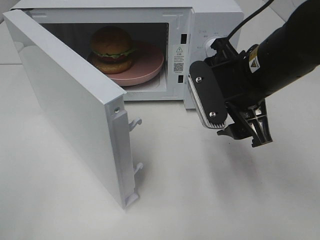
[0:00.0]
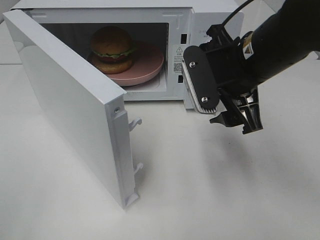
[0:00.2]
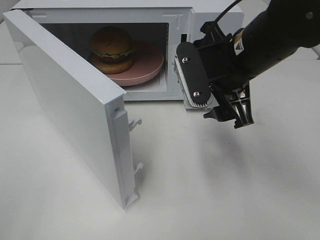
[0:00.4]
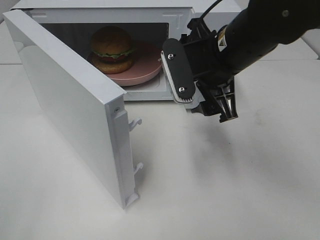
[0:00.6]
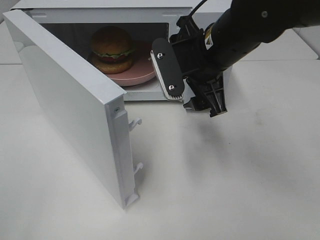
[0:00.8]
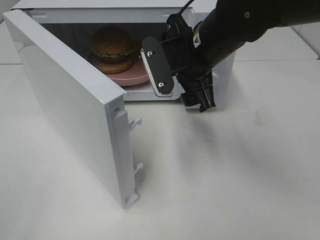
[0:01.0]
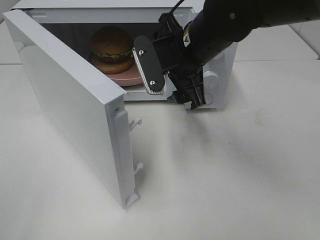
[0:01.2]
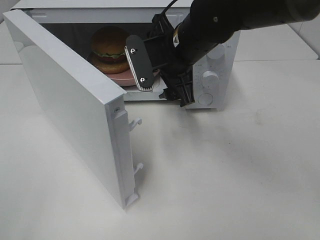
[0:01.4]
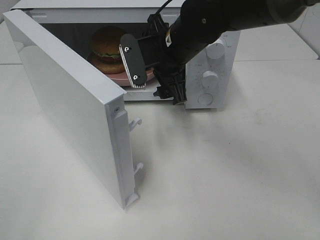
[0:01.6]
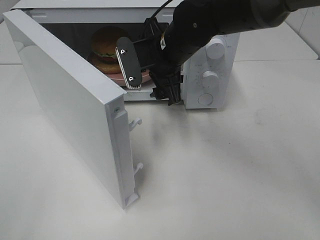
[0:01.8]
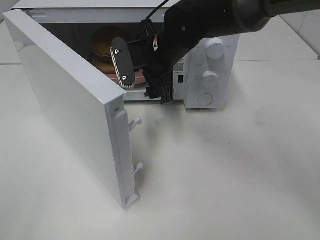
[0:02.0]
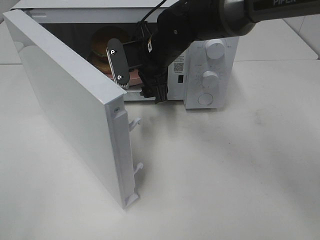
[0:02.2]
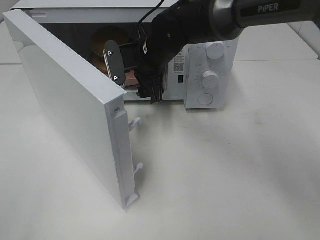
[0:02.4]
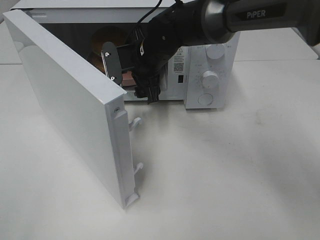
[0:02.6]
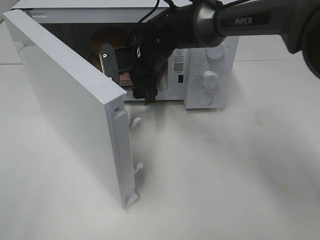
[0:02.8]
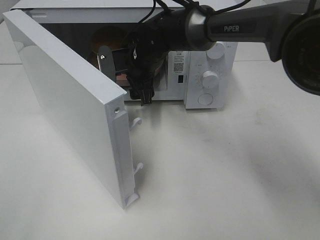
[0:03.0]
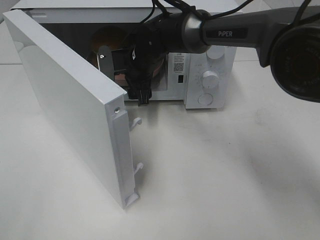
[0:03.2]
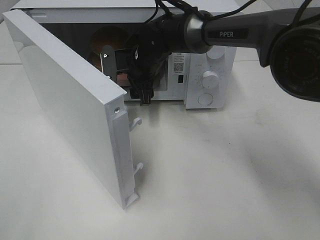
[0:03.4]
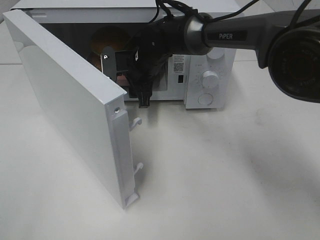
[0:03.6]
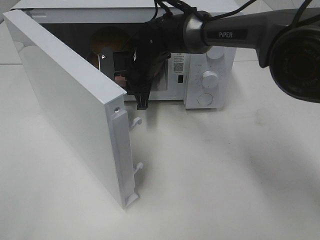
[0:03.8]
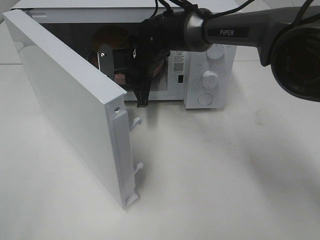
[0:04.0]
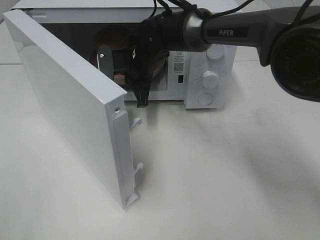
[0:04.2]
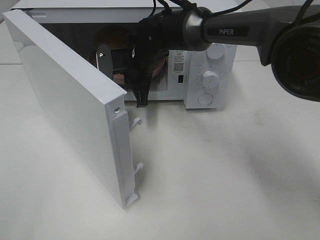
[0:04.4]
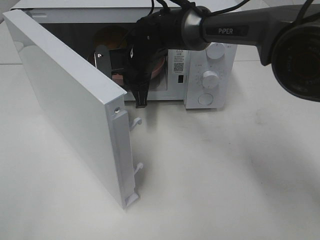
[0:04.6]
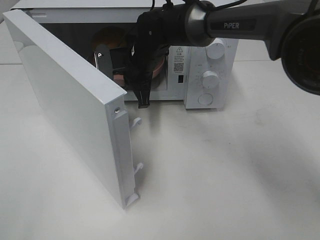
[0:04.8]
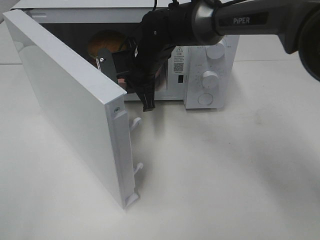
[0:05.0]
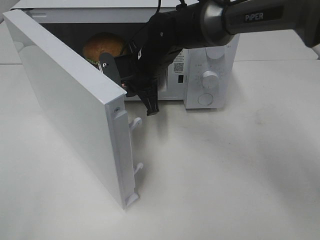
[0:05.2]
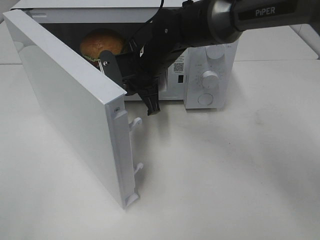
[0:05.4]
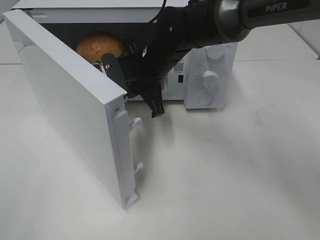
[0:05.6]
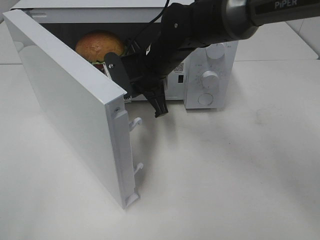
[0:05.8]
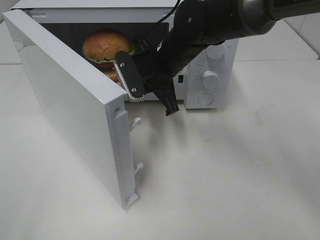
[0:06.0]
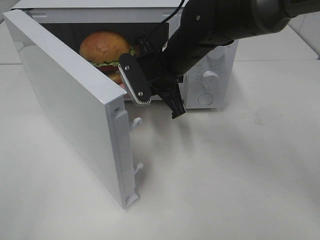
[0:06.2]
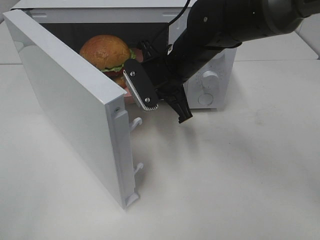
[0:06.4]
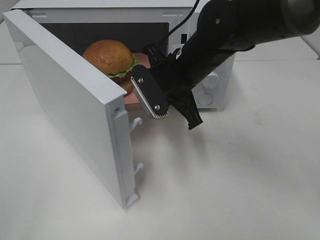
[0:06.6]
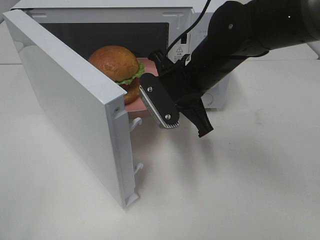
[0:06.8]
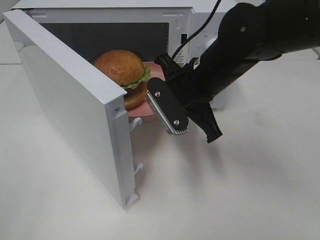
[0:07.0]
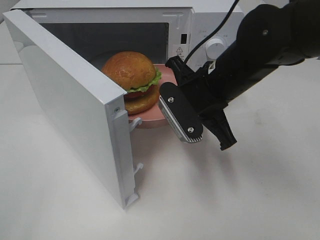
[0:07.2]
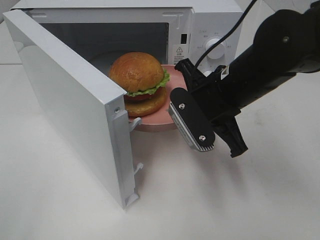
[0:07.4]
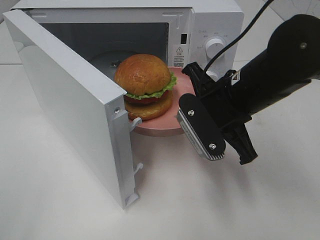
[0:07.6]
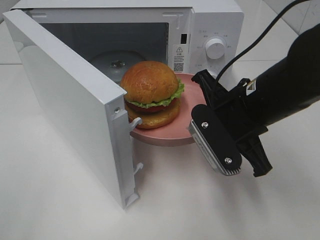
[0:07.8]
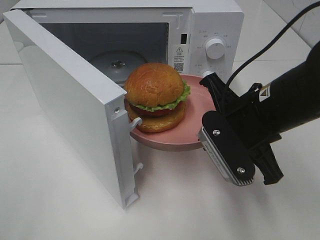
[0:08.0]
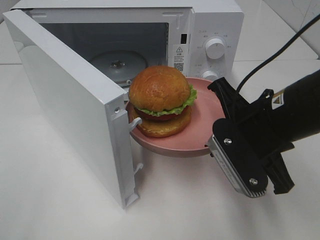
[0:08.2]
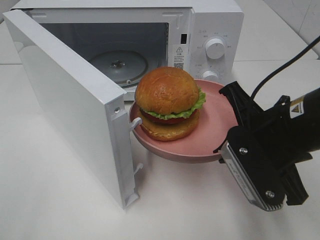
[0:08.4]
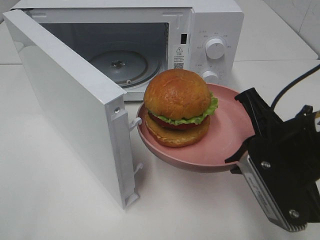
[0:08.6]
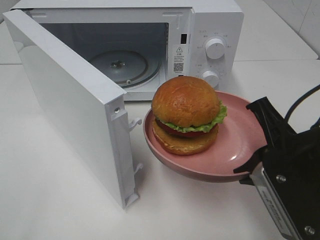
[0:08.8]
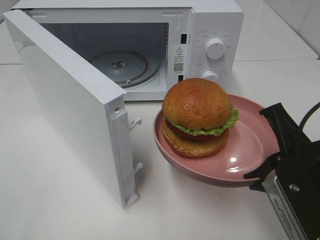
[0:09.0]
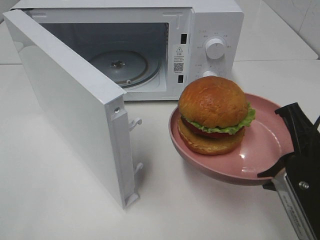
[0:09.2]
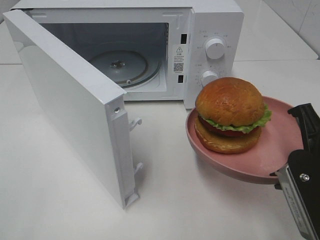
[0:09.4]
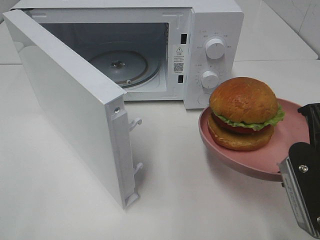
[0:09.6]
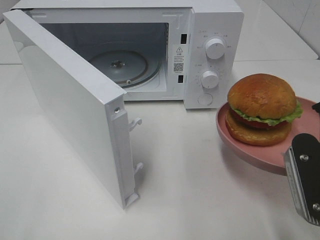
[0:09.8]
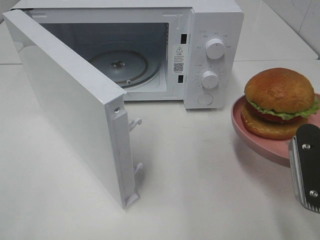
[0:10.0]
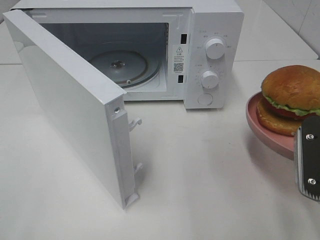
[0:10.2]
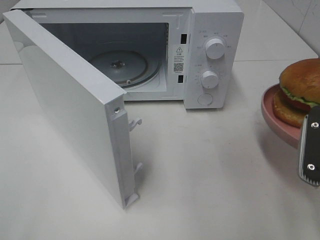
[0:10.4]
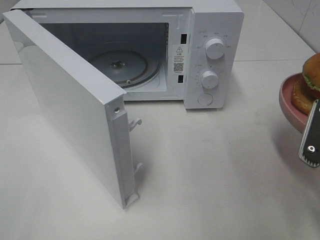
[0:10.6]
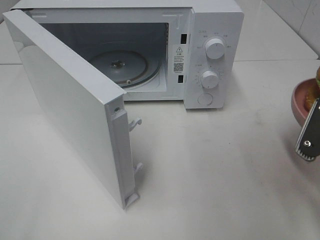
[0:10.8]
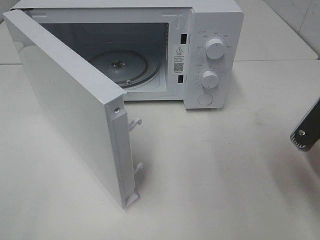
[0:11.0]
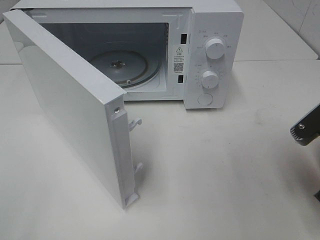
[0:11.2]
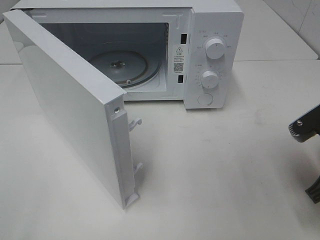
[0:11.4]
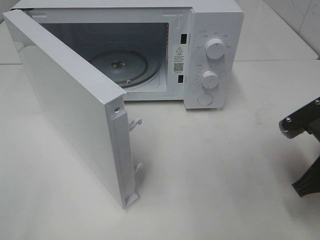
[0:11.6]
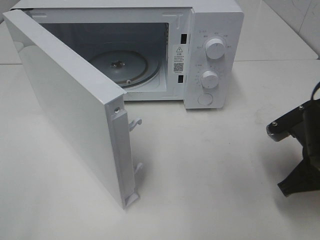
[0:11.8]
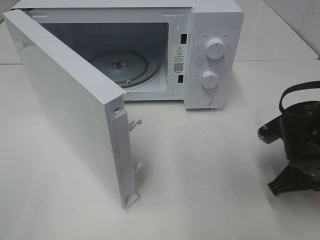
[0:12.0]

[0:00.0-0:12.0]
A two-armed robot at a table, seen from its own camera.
Task of the whole recording: Heat the burger.
Step, 0:00.0 to 0:03.8: Right hand: grab the plate with the hamburger.
0:00.0 to 0:01.6: The right gripper moves forward and to the left, approximately 15 cm.
0:01.6 to 0:03.0: The right gripper goes roughly 10 cm forward, downward and to the left.
0:03.0 to 0:04.4: The right gripper closes.
0:04.4 to 0:06.0: The right gripper goes about 5 cm backward.
0:06.0 to 0:07.6: The right gripper shifts about 15 cm backward and to the right.
0:07.6 to 0:09.0: The right gripper heads backward and to the right, covering about 15 cm.
0:10.4 to 0:12.0: The right gripper moves downward and forward, roughly 10 cm.

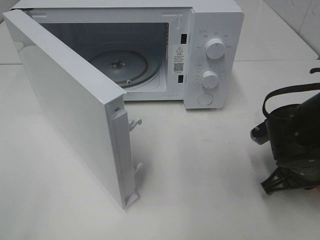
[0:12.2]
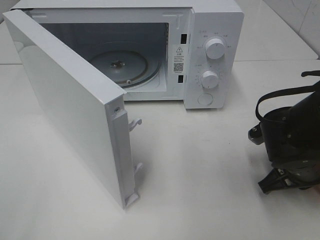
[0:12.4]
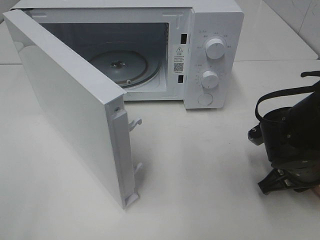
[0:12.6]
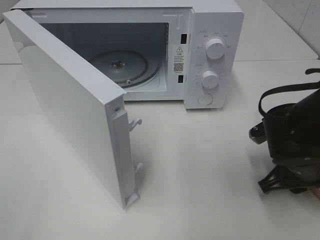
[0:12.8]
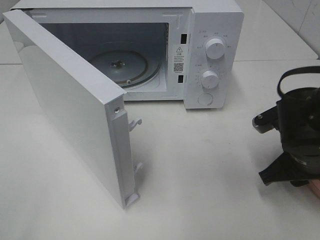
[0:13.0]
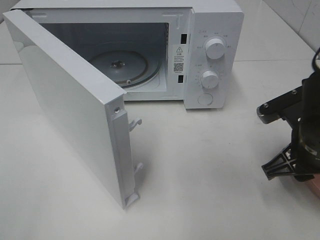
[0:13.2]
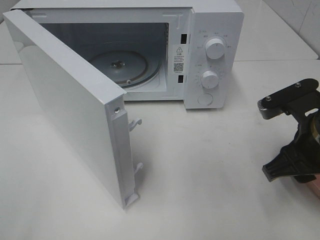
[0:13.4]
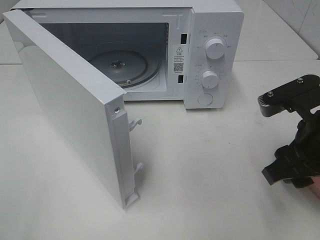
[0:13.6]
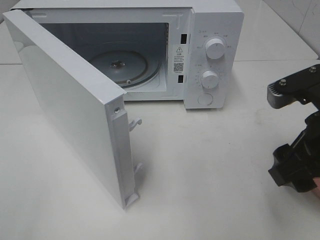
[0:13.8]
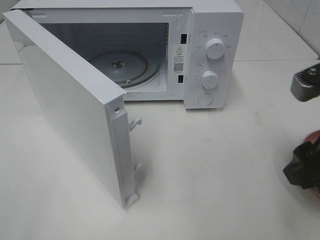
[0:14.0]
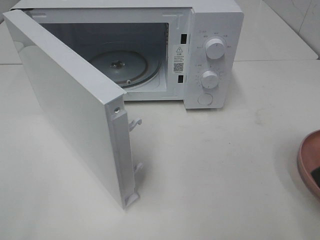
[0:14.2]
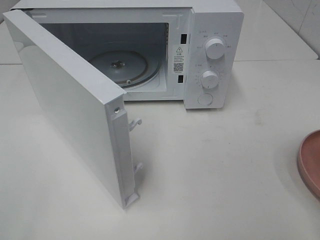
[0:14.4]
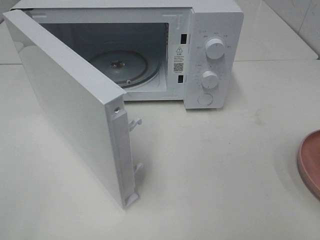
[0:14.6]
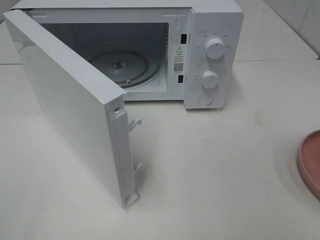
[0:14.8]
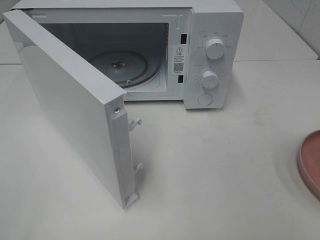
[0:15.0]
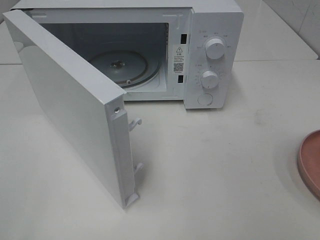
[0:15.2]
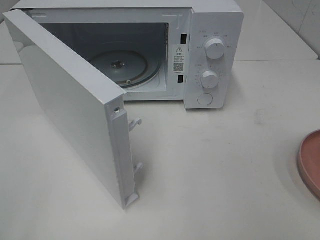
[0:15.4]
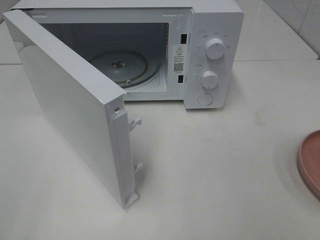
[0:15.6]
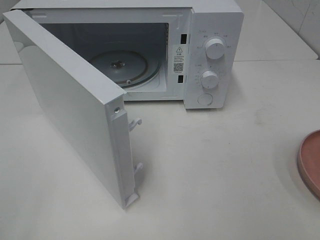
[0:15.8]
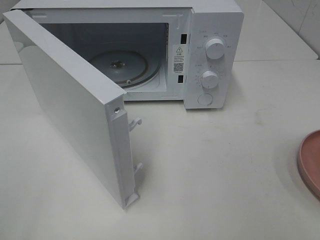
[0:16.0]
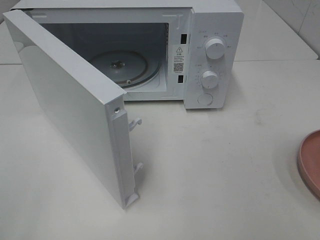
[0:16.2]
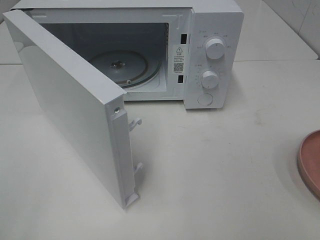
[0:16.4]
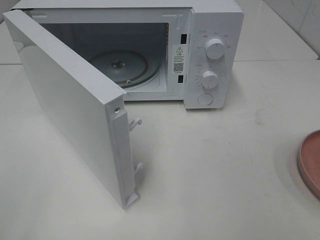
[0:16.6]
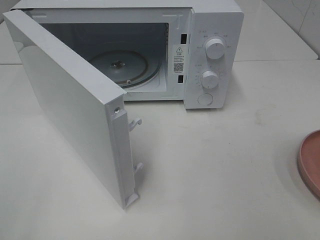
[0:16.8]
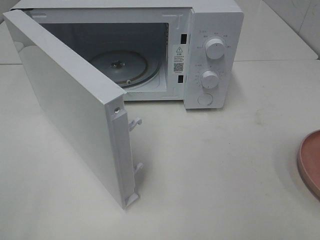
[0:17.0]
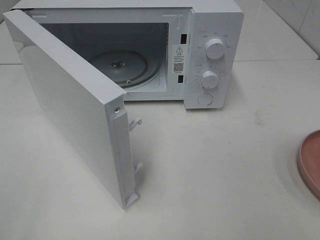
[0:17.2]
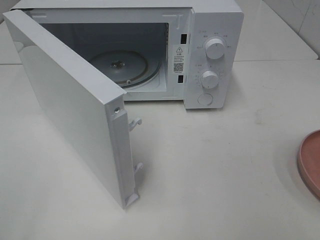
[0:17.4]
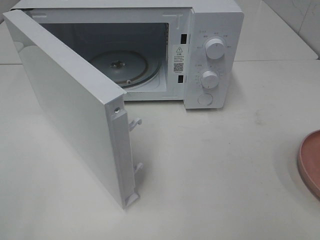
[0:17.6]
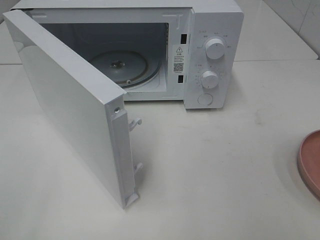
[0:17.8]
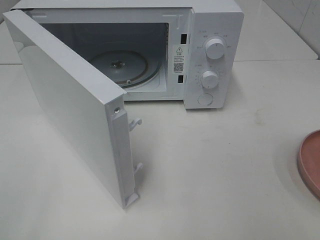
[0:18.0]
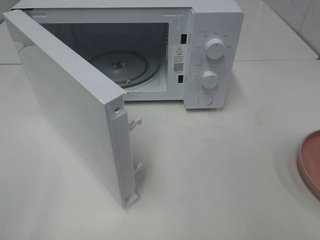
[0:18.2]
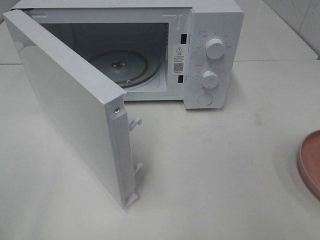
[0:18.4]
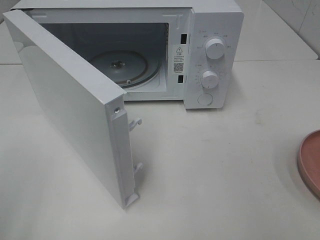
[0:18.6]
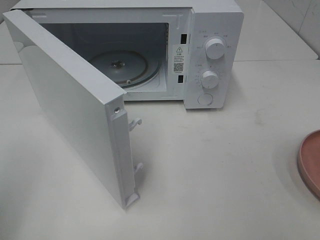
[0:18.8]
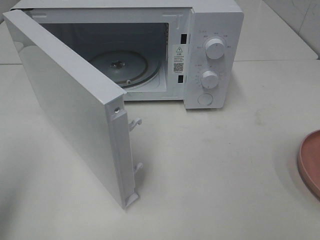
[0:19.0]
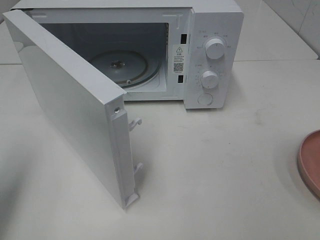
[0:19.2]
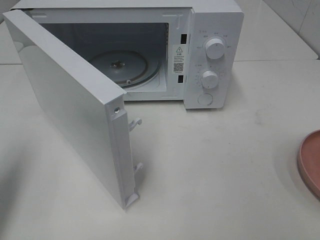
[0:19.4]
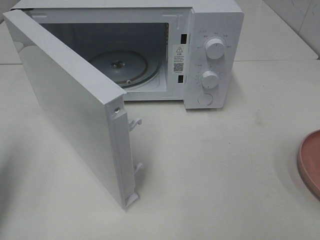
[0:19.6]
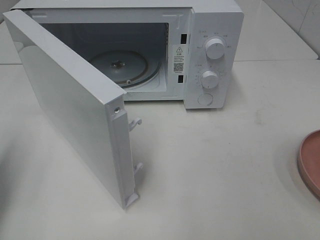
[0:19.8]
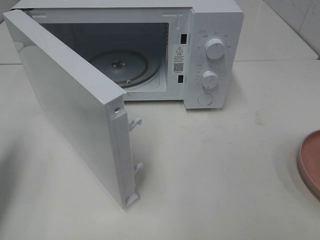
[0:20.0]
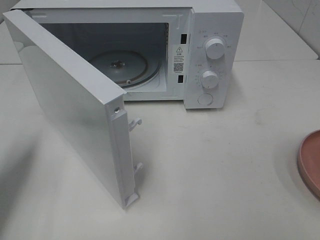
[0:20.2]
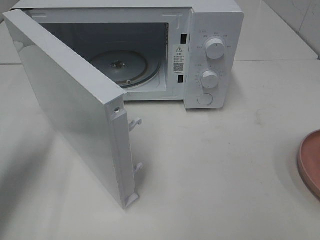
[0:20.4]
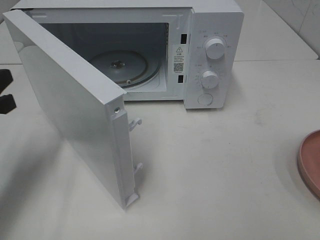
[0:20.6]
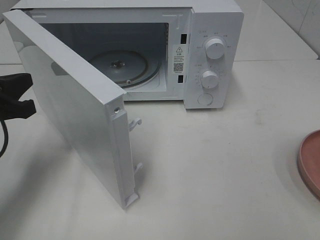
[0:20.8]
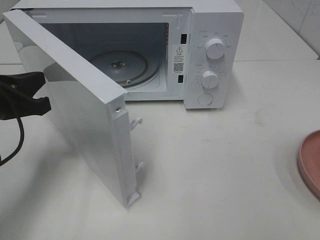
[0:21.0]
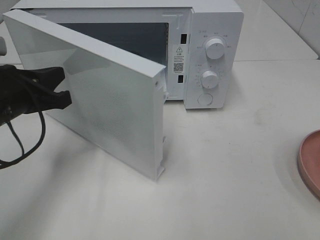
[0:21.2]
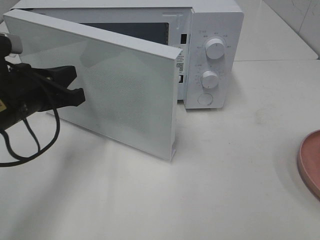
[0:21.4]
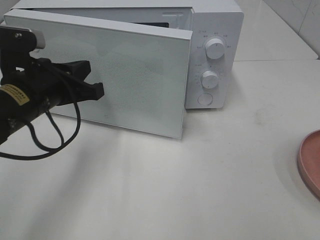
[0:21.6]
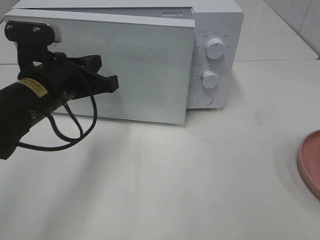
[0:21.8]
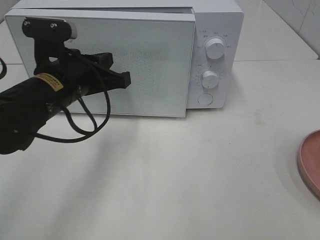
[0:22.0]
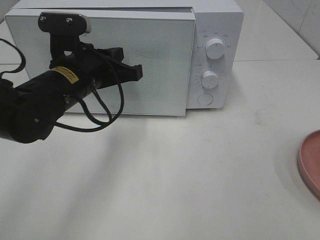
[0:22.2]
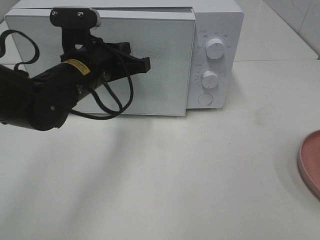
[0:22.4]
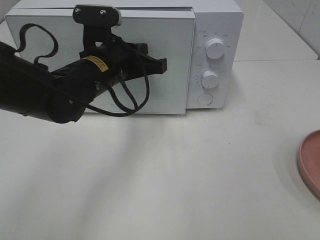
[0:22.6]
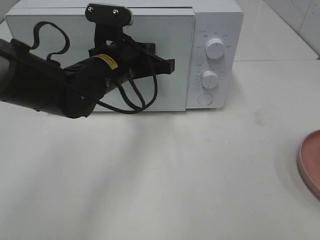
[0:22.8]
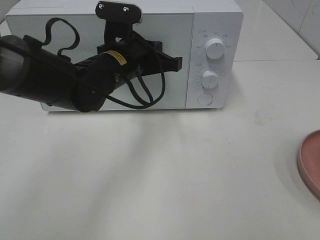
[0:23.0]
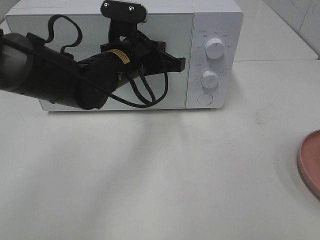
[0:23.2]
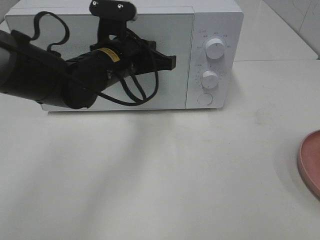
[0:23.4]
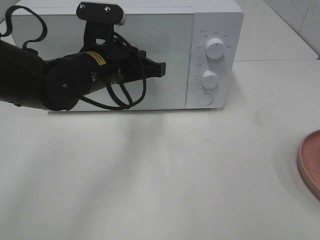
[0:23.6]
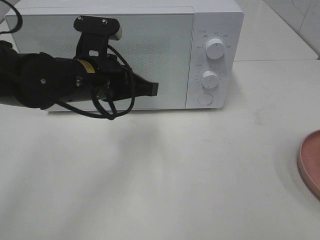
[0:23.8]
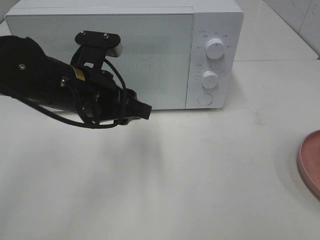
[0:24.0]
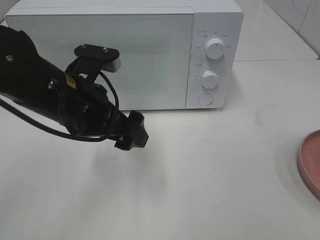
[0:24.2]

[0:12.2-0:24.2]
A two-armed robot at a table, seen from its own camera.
Task of the whole recording: Heat the burger.
Step, 0:13.0 to 0:23.6: Left hand: close the microwave door.
0:12.2 to 0:13.8: The right gripper is displaced upward and backward by some 15 cm, and opens its fingers.
0:13.8 to 0:15.2: The right gripper shifts about 20 cm backward, to the right and upward.
0:18.2 to 0:19.8: The left gripper travels forward by some 20 cm, and closes.
0:19.8 to 0:21.2: The left gripper is displaced to the right, forward and downward by about 15 cm.
0:21.2 to 0:22.6: The left gripper travels to the right and forward by some 15 cm.
0:22.6 to 0:24.2: The left gripper moves backward, roughly 10 cm, and opens up.
